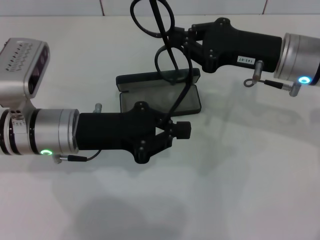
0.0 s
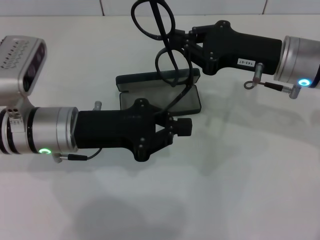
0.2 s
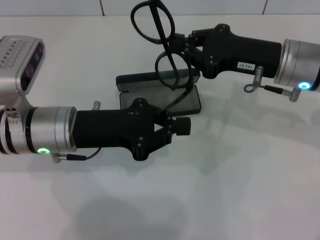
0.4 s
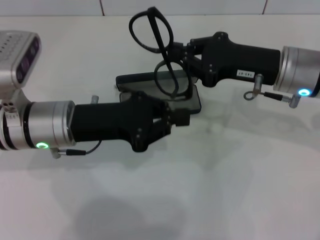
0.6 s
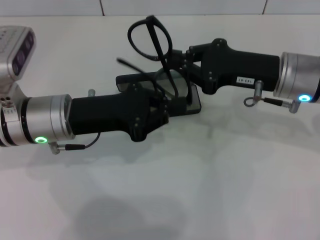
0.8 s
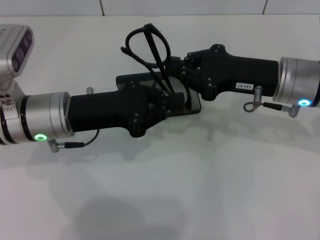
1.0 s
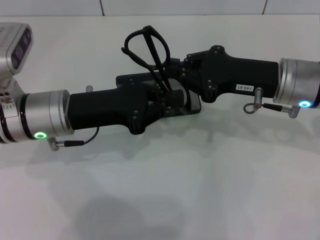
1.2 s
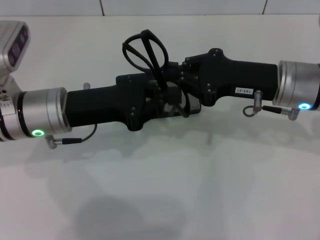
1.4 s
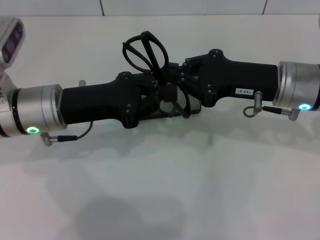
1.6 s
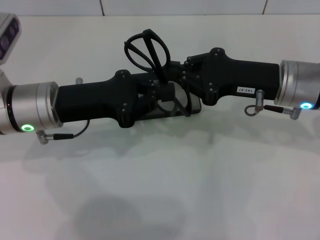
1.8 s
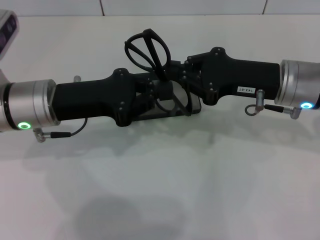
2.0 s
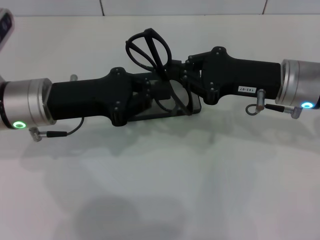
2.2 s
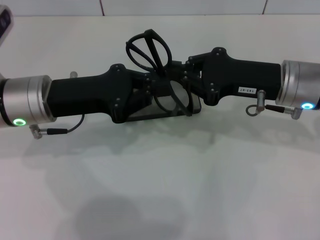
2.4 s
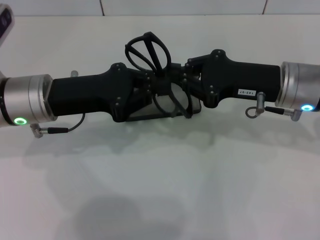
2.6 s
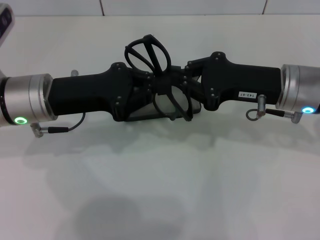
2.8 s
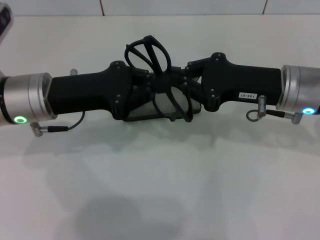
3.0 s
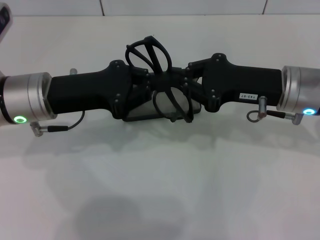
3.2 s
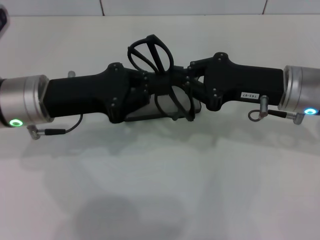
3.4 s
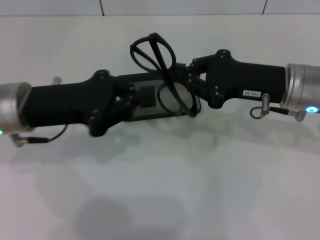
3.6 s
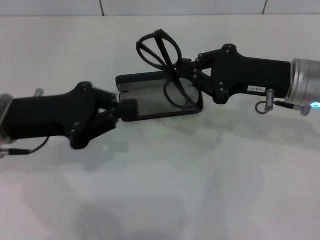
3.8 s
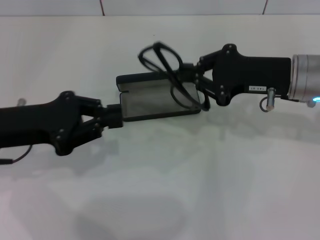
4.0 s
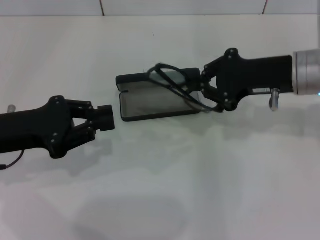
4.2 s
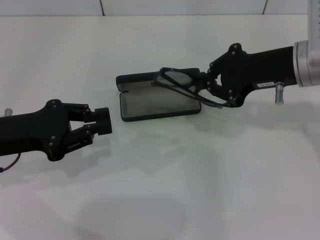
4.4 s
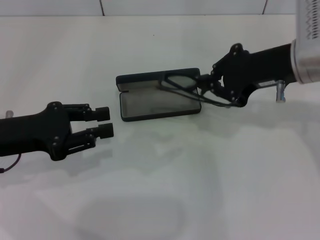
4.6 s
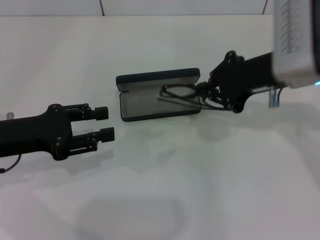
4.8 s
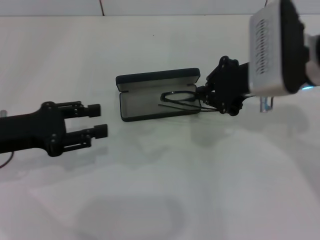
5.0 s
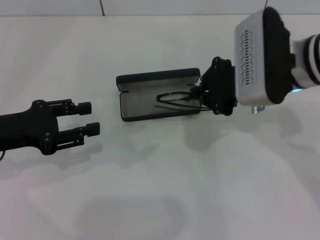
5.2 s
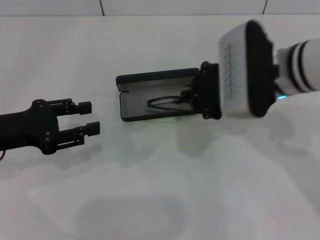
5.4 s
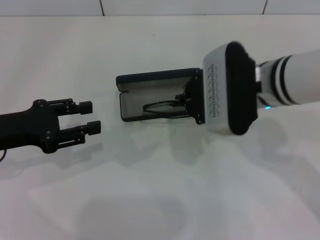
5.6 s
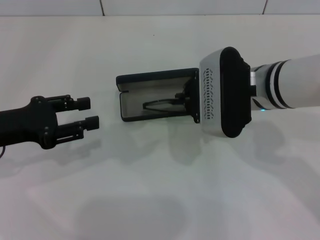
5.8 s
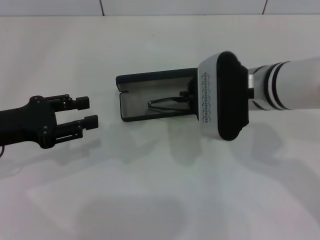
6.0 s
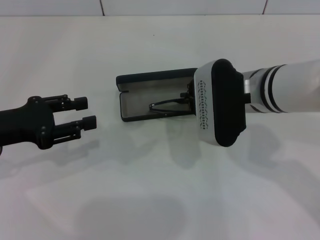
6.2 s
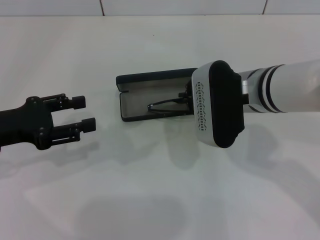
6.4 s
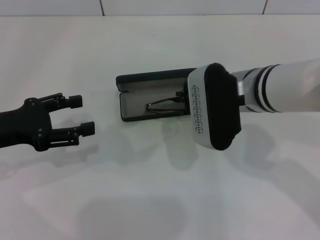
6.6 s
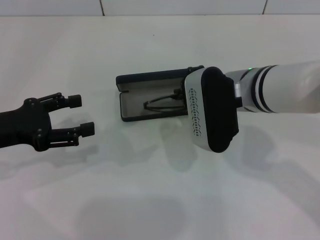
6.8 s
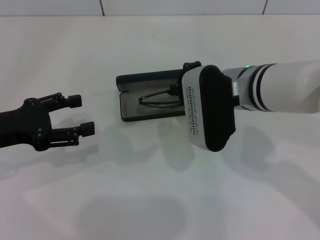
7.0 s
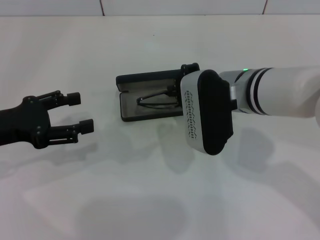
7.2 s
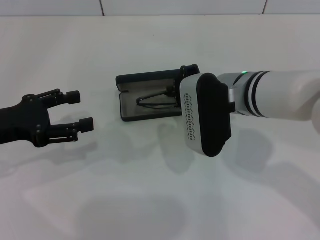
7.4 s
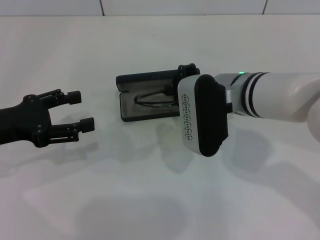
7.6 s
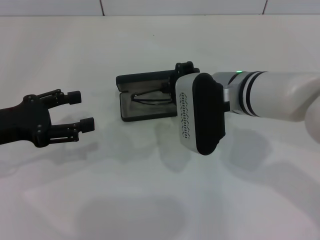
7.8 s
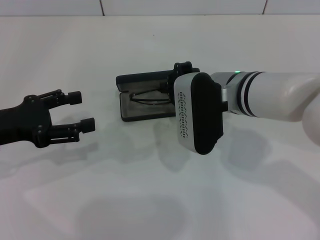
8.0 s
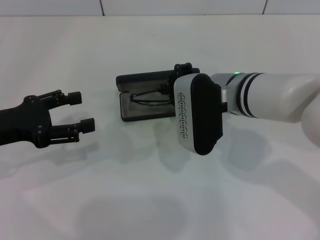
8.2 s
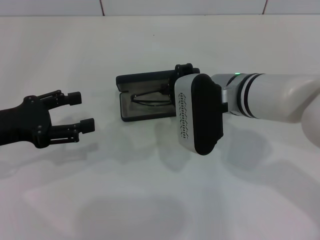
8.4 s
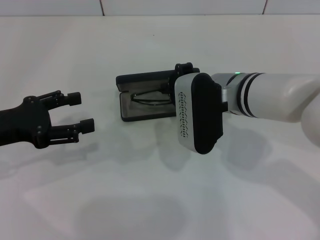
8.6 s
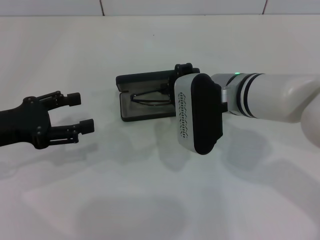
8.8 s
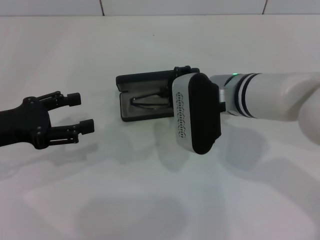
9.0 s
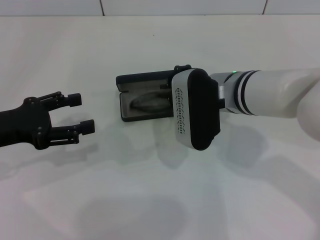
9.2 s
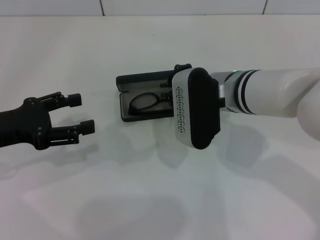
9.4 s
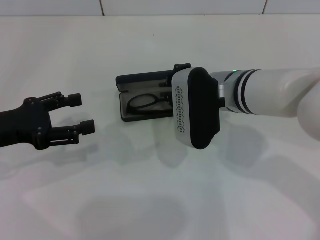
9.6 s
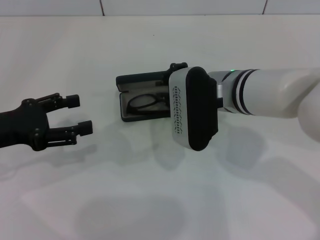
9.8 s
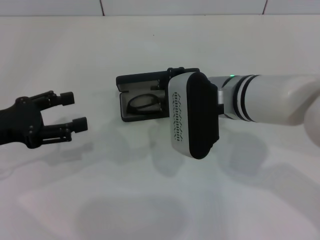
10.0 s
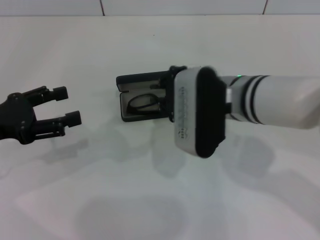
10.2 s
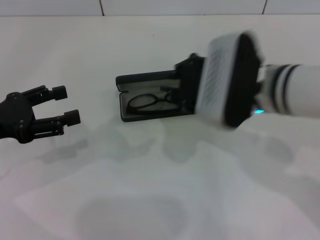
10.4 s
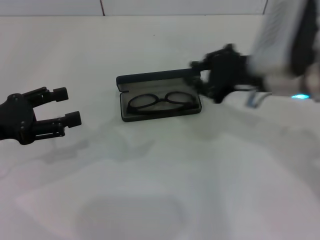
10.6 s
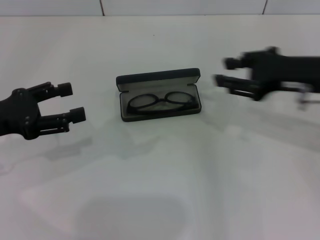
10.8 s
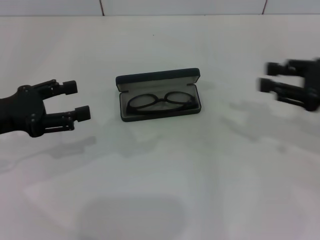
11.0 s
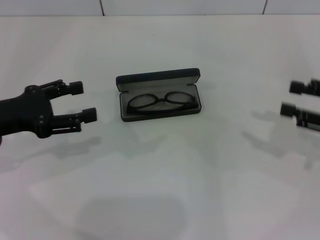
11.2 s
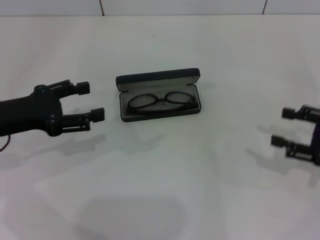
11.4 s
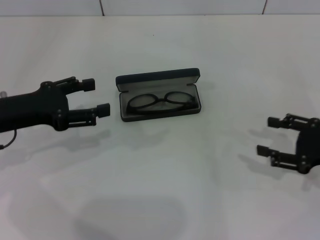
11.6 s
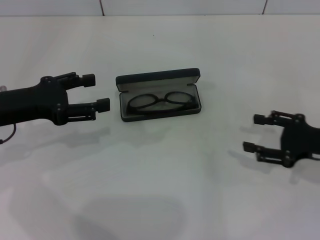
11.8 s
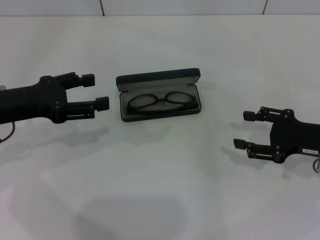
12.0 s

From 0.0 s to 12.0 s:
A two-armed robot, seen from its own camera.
Step, from 0.0 s to 3.2 s: Lift the glasses with your right hand.
Step, from 3.4 s to 9.2 s: Put the glasses into the case with your right hand.
From 1.6 s to 3.0 s: The grippers make only small movements.
From 3.0 s to 4.4 s: The right gripper moves about 5 cm; the left gripper is displaced to the left and backward by roughly 10 cm.
From 4.4 s to 6.0 s: The right gripper shifts roughly 10 cm to the left; the left gripper opens its fingers.
From 6.0 s to 7.6 s: The grippers stay close to where they were, moving slightly.
From 7.6 s to 9.0 s: Both grippers stay put.
From 9.0 s to 10.4 s: The right gripper changes place by some 5 cm.
From 10.4 s to 12.0 s: The left gripper moves some 5 cm; the right gripper heads to the right and downward, covering roughly 20 cm, and opens.

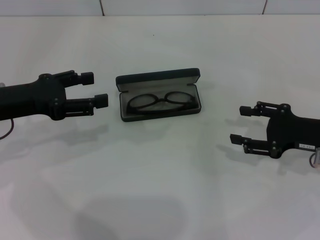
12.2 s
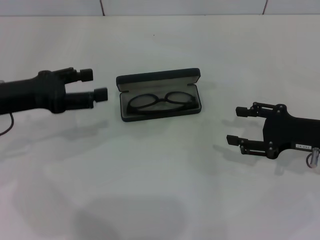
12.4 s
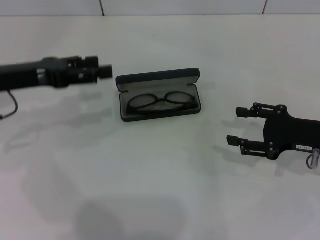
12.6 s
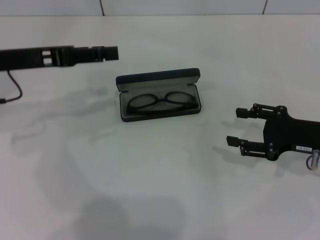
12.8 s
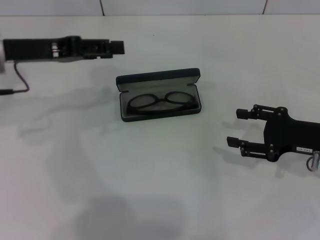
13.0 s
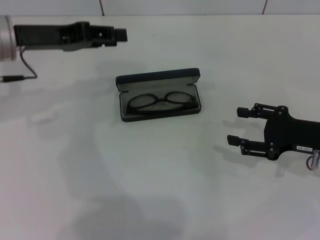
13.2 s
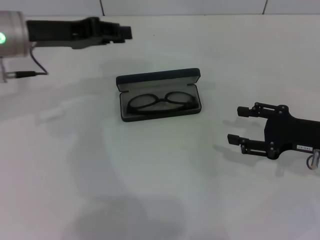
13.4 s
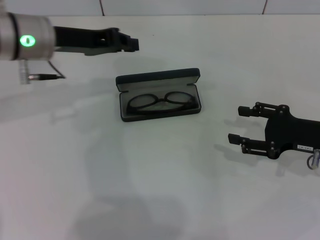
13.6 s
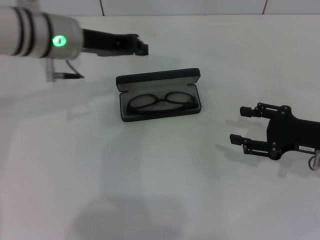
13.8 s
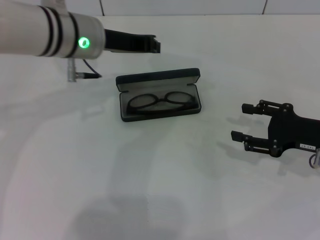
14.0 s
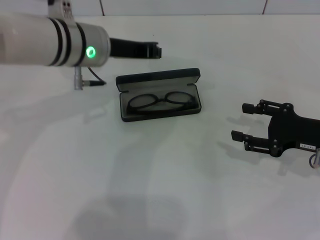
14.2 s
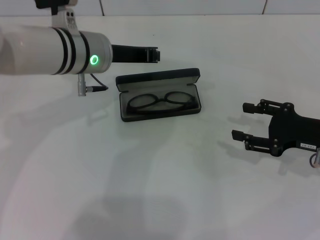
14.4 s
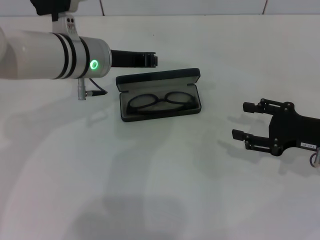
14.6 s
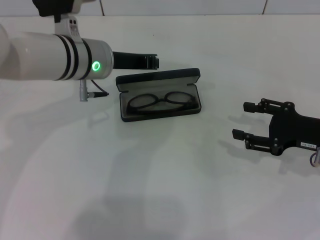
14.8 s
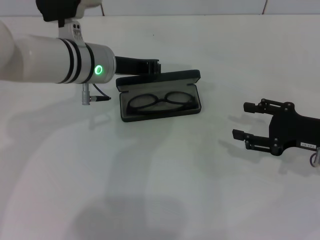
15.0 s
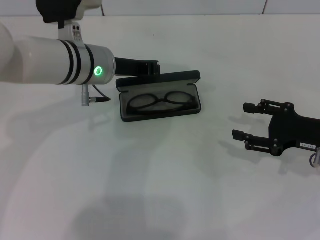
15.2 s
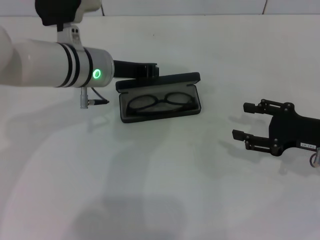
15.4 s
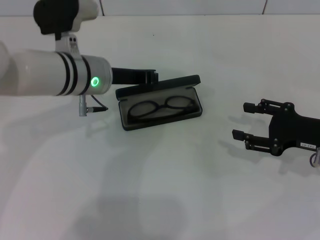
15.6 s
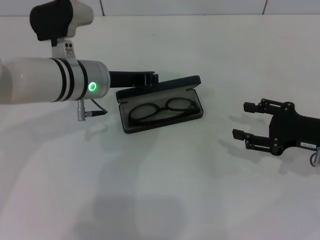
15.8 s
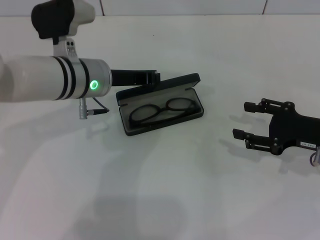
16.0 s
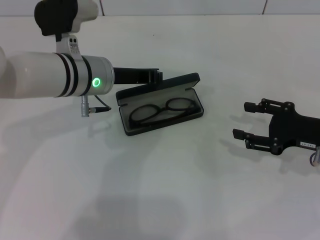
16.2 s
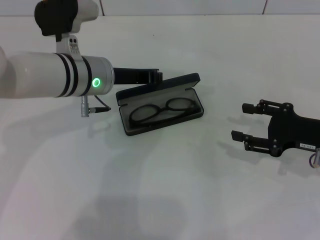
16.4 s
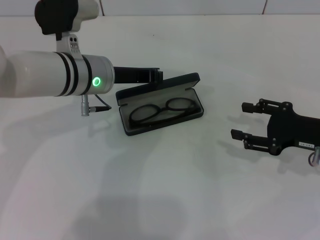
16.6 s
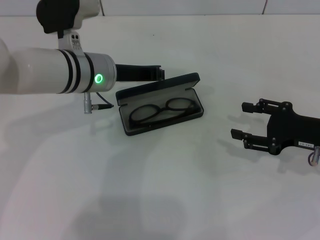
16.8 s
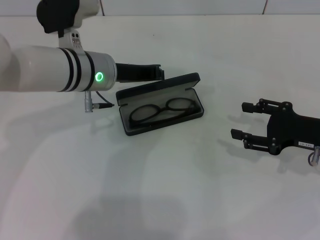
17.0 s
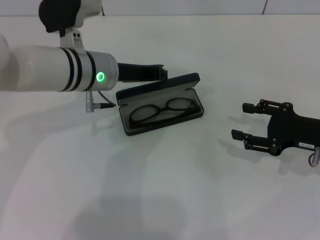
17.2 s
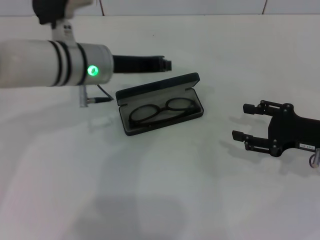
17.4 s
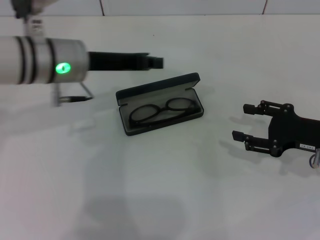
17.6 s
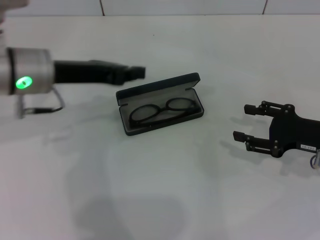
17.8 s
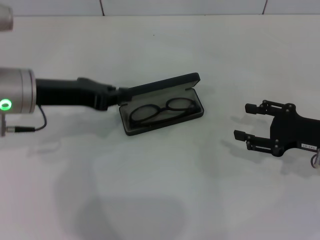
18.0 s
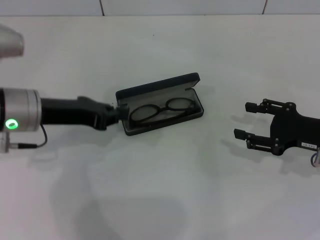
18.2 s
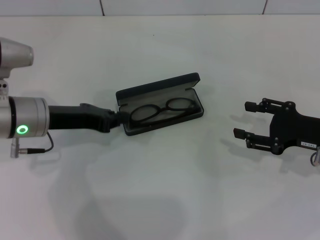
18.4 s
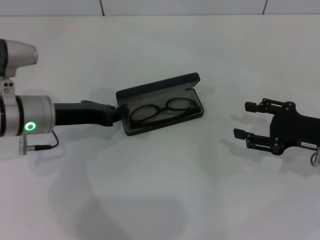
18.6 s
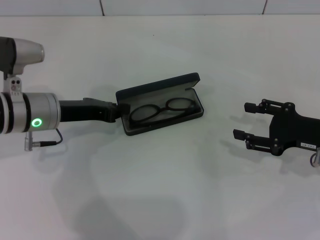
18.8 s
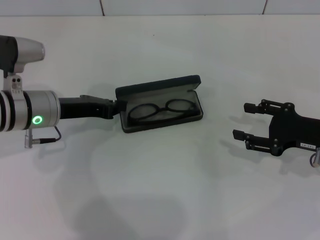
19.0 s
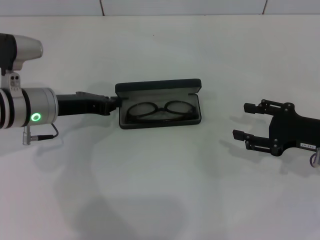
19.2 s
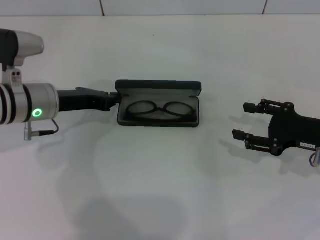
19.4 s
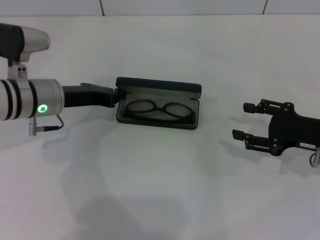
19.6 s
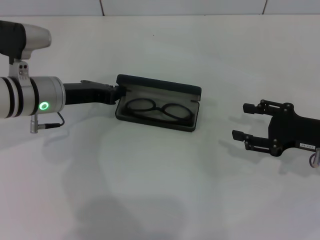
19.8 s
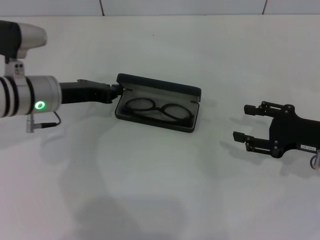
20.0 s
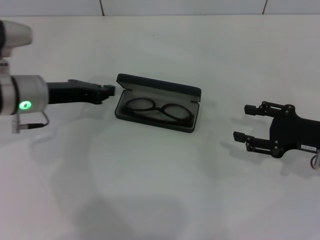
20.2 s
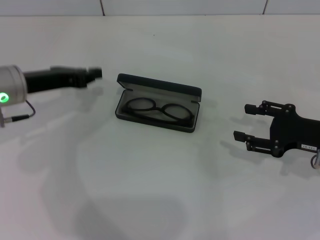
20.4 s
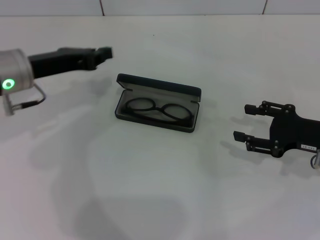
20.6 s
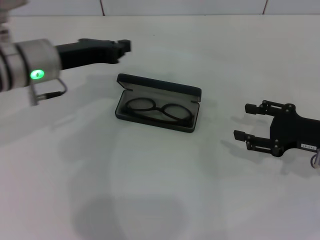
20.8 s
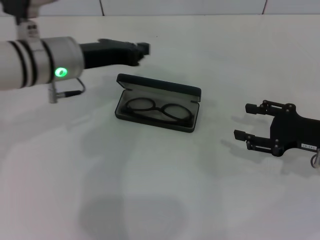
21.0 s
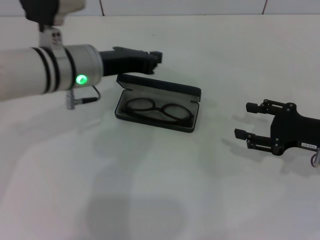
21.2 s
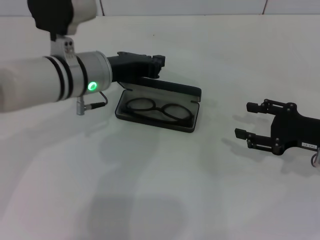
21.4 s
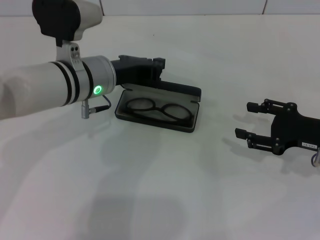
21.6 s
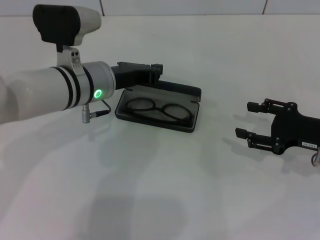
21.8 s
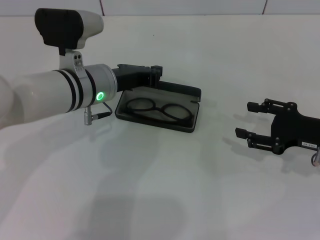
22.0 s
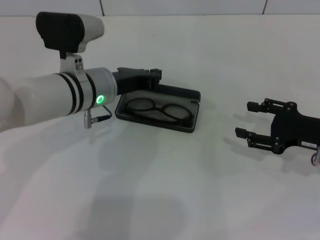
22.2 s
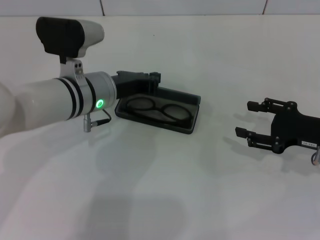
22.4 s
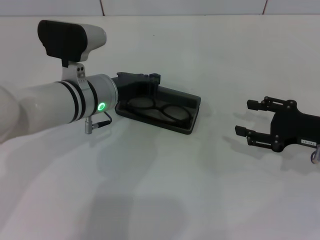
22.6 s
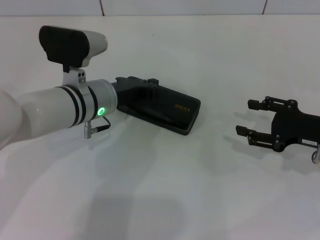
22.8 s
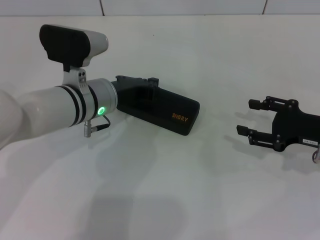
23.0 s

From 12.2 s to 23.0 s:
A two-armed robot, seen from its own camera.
Step, from 12.2 s to 22.8 s: Close the glasses case with your left hand.
From 12.2 s to 13.8 s: The left gripper travels to the right, forward and upward by some 15 cm, and closes.
From 13.8 s to 15.2 s: The left gripper shifts by about 5 cm.
From 15.2 s to 16.8 s: The grippers stay close to where they were, moving slightly.
From 16.8 s to 18.4 s: The left gripper is displaced to the left and backward by some 10 cm.
From 18.4 s to 20.0 s: The grippers make only small movements.
From 20.0 s to 21.4 s: The left gripper shifts roughly 10 cm to the right.
From 21.4 s to 23.0 s: The grippers make only small movements.
